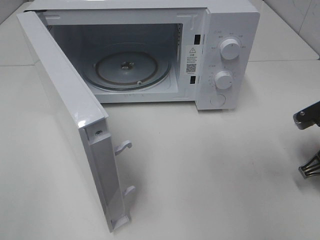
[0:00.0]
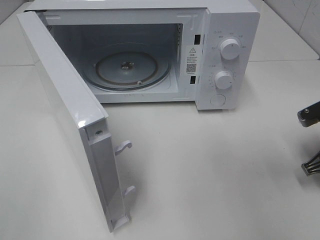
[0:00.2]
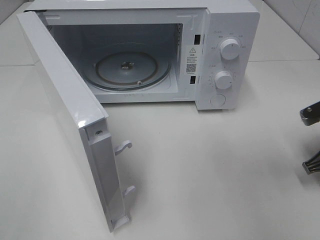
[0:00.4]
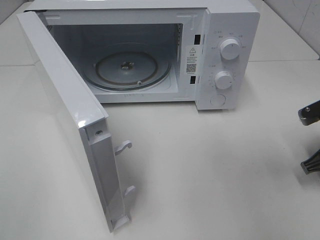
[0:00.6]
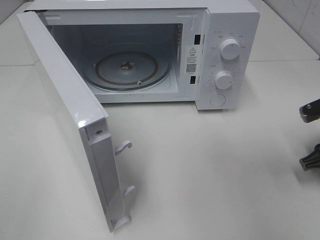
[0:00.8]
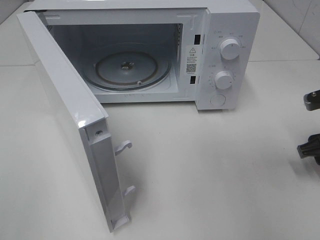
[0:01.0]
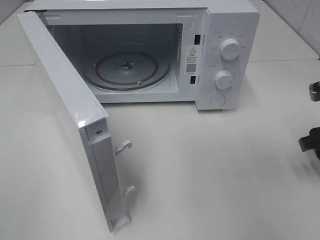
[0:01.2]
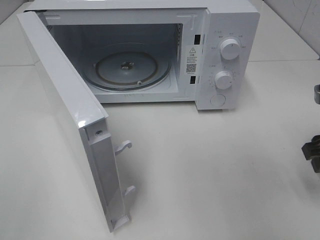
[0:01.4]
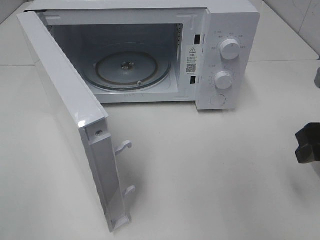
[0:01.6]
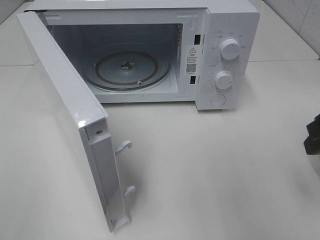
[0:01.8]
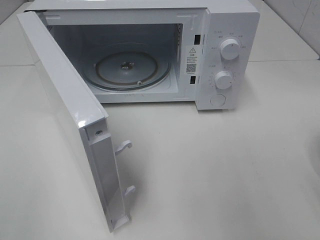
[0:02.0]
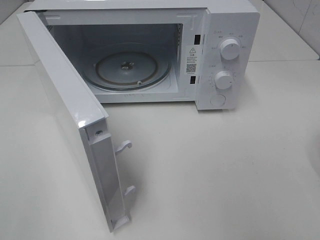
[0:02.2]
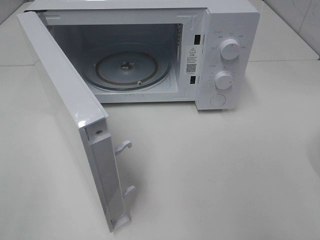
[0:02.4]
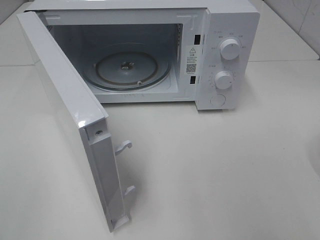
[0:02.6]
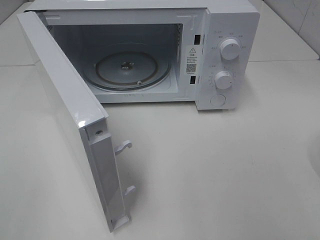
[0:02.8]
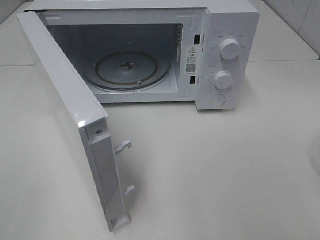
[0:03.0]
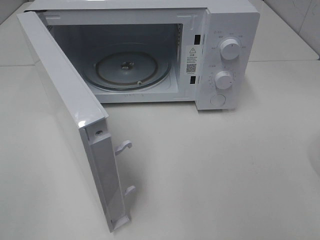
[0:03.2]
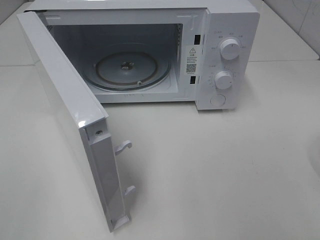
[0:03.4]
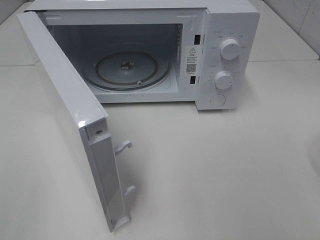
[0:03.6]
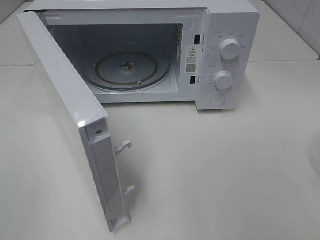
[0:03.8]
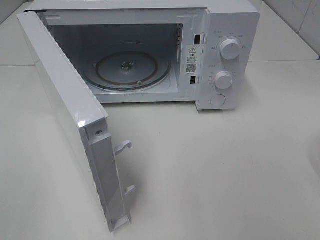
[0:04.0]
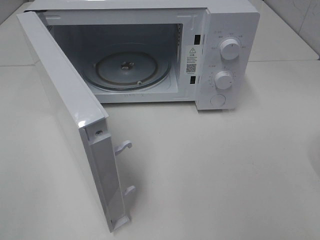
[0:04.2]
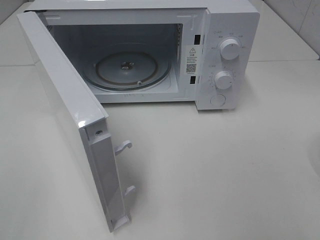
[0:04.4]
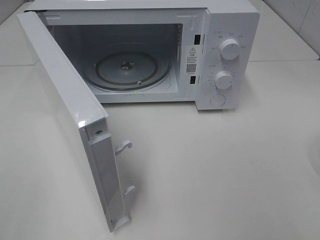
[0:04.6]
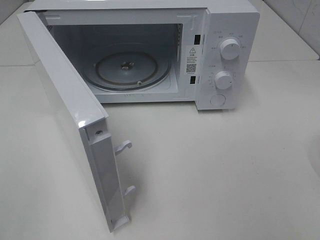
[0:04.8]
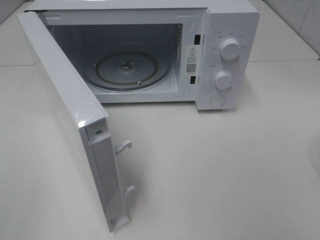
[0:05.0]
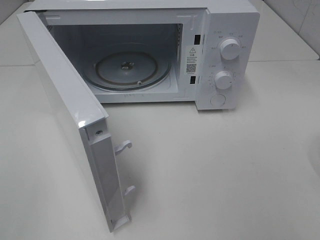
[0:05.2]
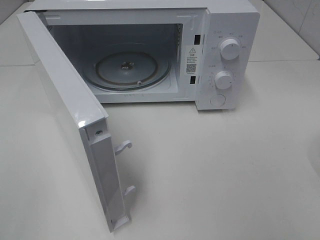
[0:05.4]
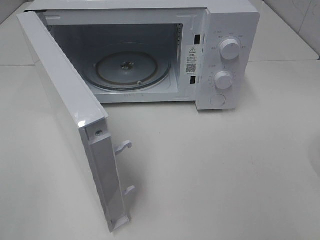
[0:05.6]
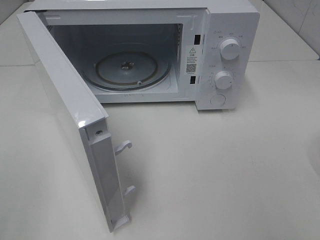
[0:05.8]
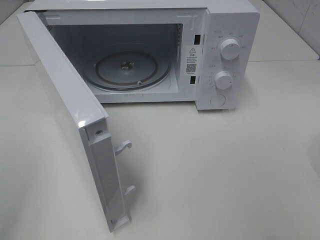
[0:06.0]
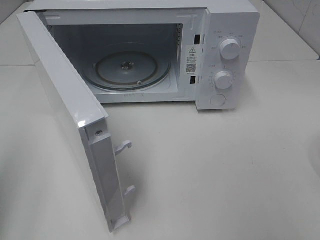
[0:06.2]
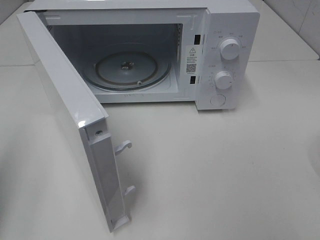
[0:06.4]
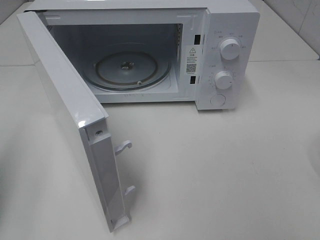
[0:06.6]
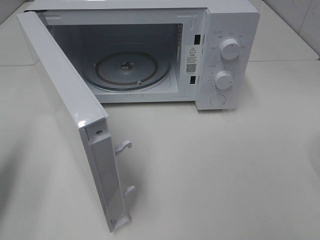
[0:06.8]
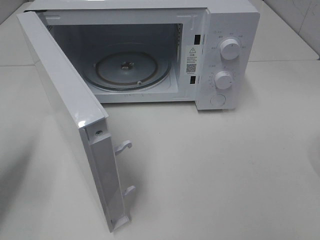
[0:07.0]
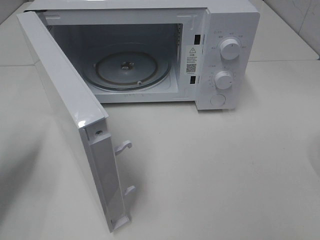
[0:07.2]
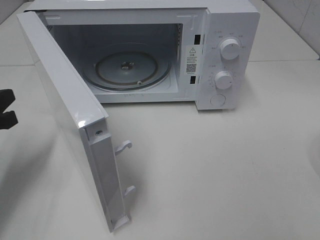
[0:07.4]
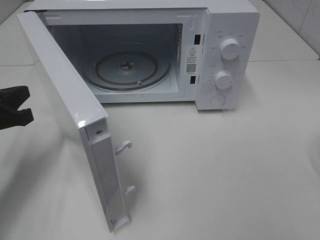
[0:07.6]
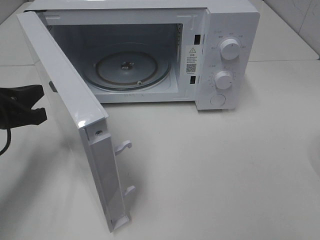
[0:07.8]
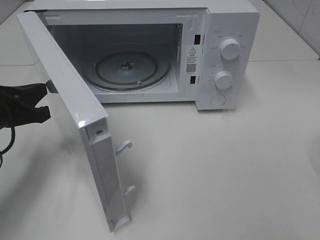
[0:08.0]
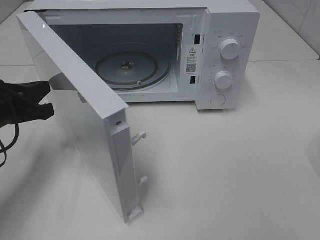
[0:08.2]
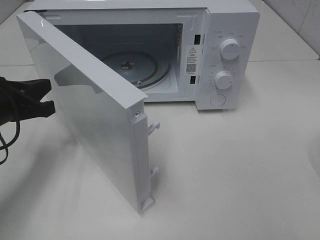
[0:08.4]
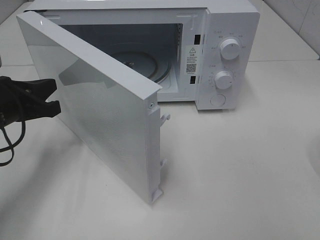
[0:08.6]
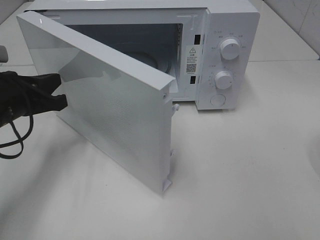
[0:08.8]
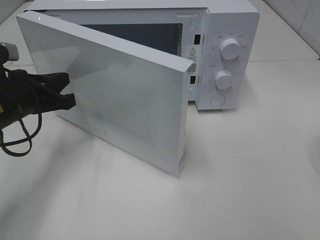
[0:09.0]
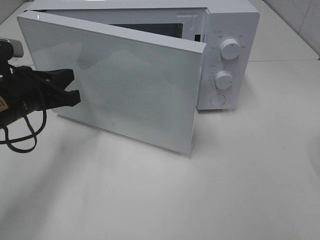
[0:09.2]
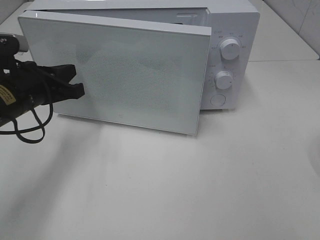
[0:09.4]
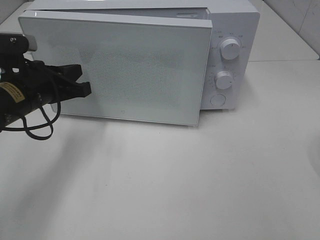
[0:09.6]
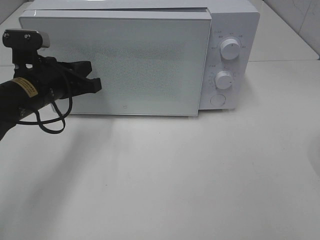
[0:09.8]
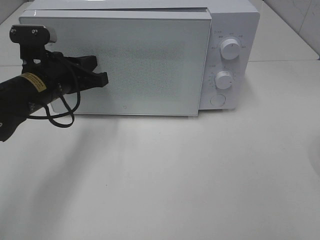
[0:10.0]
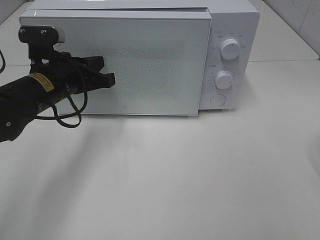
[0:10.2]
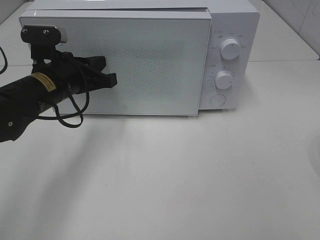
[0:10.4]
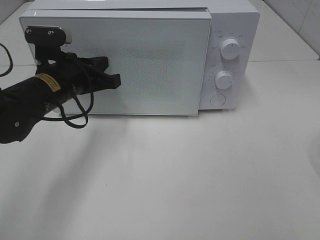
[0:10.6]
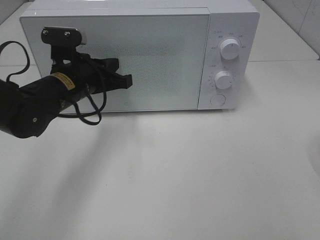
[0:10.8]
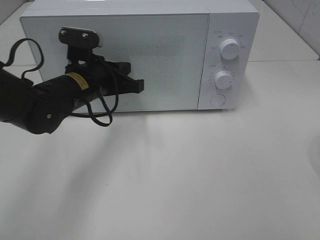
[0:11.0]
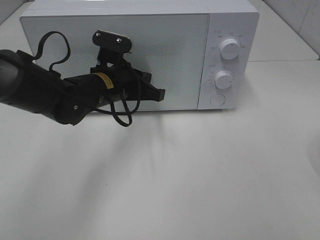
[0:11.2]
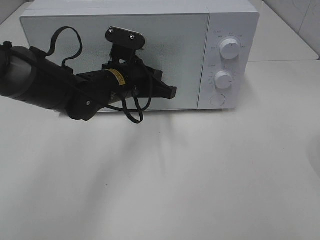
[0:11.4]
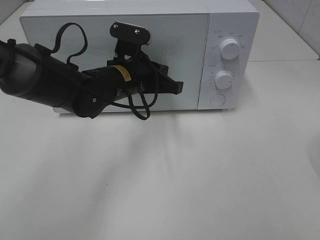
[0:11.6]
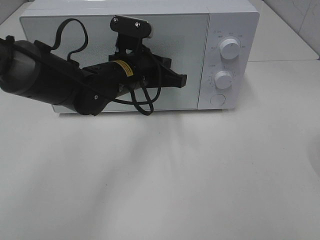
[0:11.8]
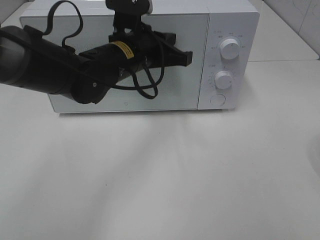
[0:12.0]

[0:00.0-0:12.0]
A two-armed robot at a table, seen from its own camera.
Task of the whole recording: Heat the burger.
Step, 0:00.8 to 0:11.0: Left hand: close the microwave door.
0:00.0 to 0:01.6: The right gripper shifts about 10 cm upward, and opens up.
0:01.6 to 0:03.0: The right gripper shifts about 20 cm backward.
0:06.0 to 0:07.6: The left gripper heads forward and downward, covering about 25 cm, and closes.
0:07.6 to 0:09.0: The left gripper moves to the right, roughly 5 cm.
0:09.0 to 0:10.4: The left gripper is displaced to the right by some 5 cm.
0:10.4 to 0:12.0: The left gripper travels to the right by some 10 cm.

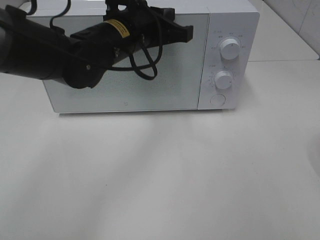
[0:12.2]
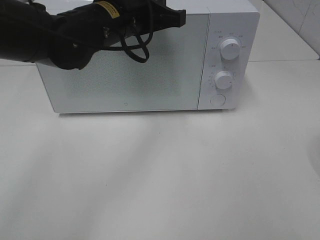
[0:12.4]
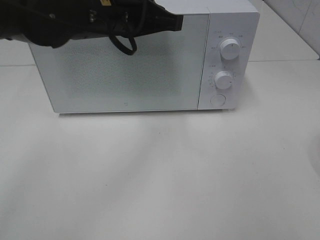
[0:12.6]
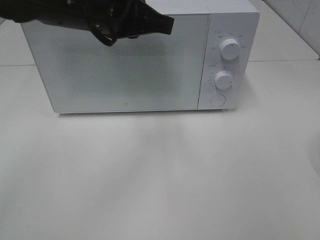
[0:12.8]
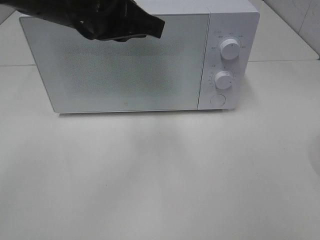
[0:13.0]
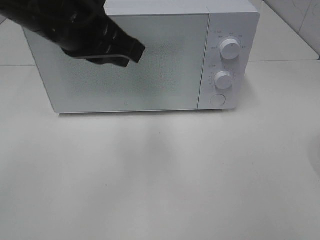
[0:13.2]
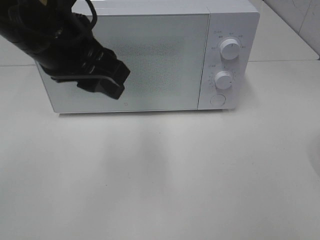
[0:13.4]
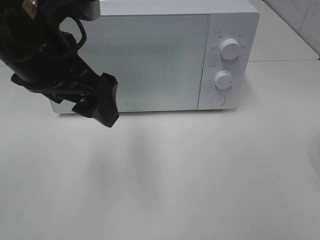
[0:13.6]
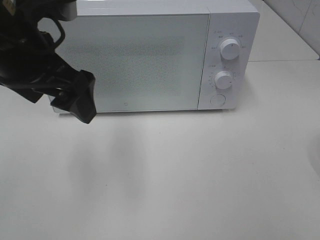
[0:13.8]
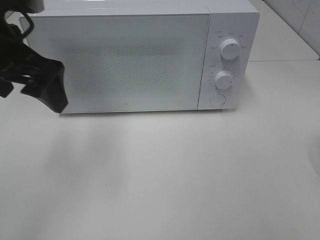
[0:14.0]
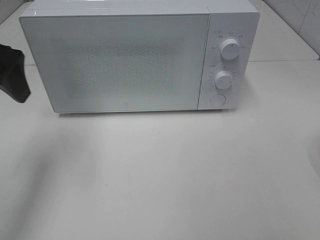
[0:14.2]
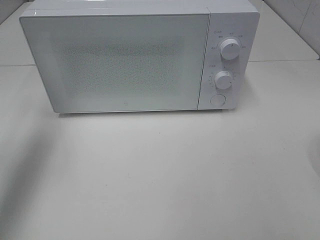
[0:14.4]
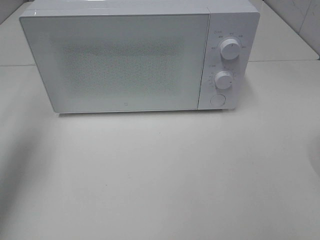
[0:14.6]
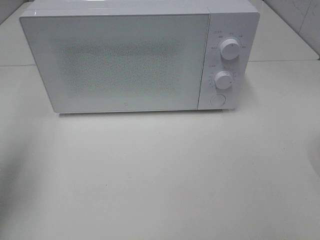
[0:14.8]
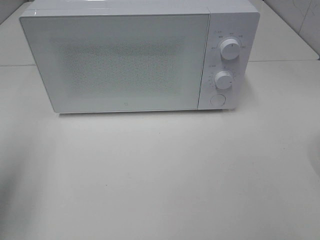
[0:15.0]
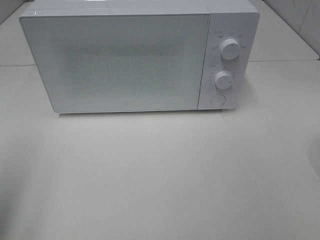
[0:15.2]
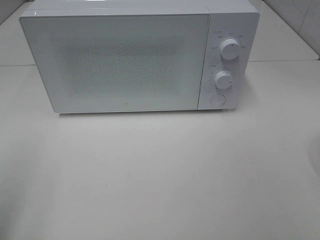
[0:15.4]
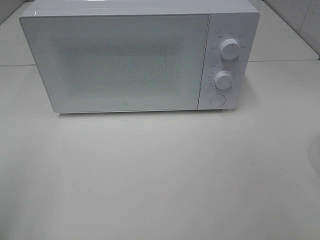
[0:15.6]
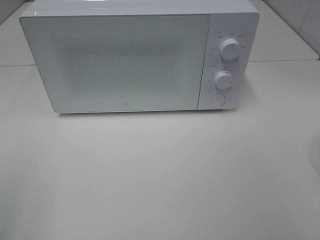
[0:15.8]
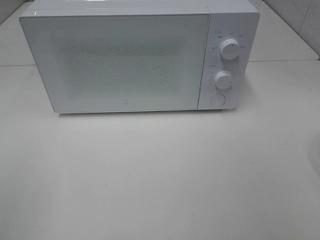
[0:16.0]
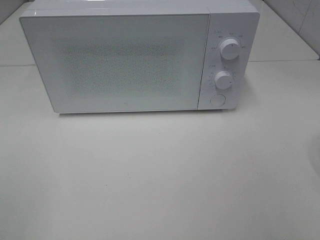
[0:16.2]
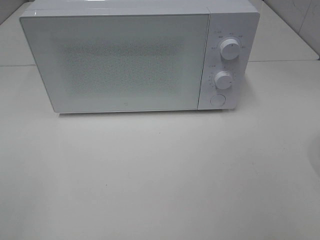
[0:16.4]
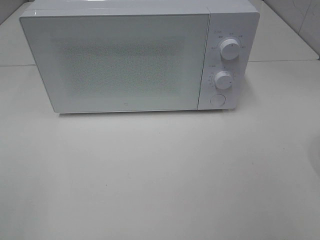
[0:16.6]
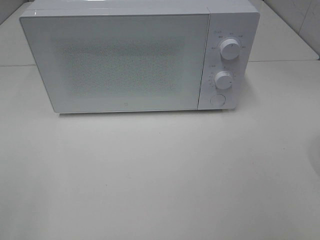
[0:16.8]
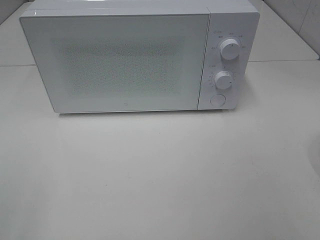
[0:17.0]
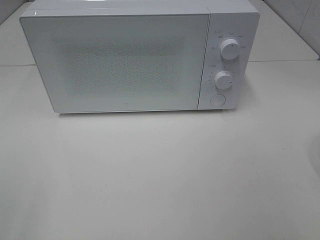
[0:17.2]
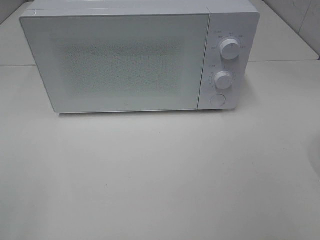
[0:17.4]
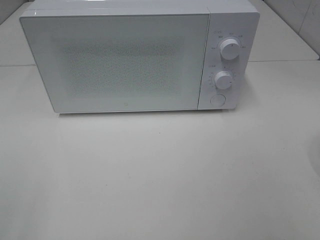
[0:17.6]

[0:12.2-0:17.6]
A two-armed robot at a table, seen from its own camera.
Task of the whole recording: Heat the burger.
0:12.2 to 0:13.6: The left gripper goes some 15 cm backward, to the left and upward, and opens its fingers.
0:13.6 to 0:15.0: The left gripper goes approximately 20 cm to the left.
0:15.0 to 0:16.2: The left gripper goes approximately 15 cm backward.
0:16.2 to 0:17.6: Both grippers stay put.

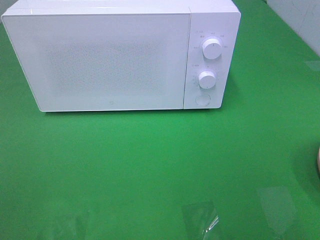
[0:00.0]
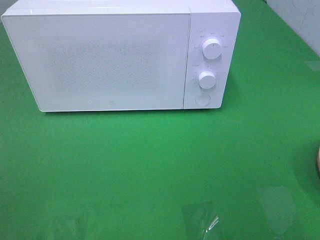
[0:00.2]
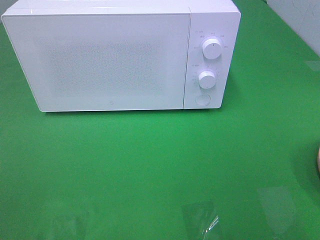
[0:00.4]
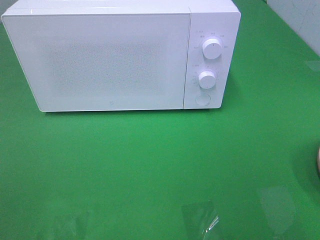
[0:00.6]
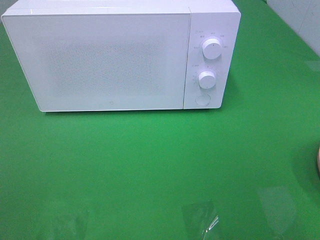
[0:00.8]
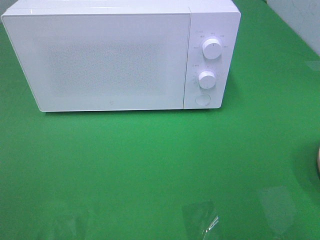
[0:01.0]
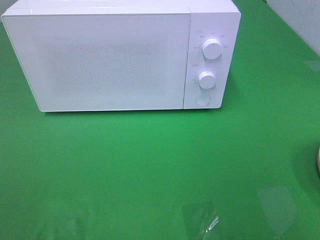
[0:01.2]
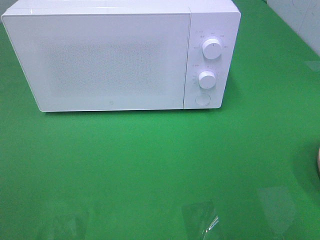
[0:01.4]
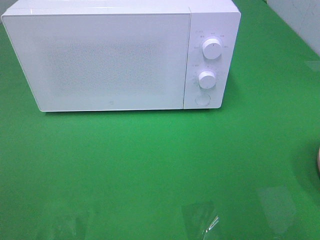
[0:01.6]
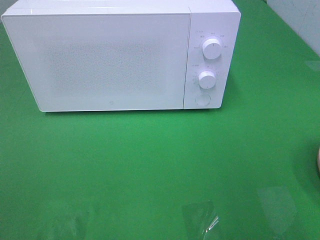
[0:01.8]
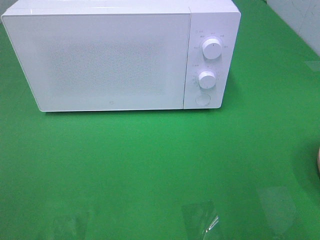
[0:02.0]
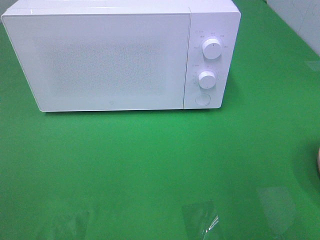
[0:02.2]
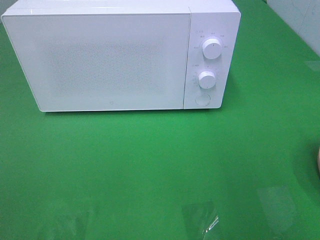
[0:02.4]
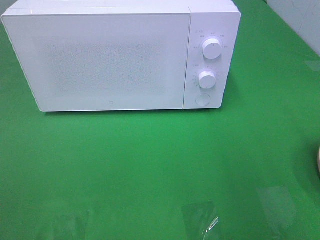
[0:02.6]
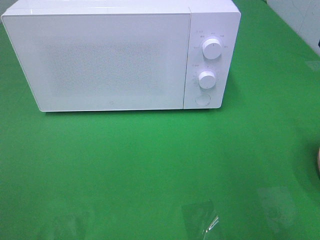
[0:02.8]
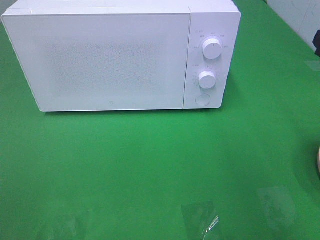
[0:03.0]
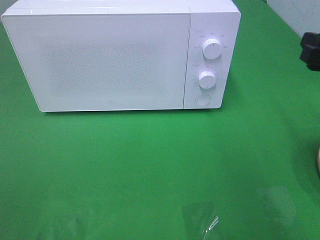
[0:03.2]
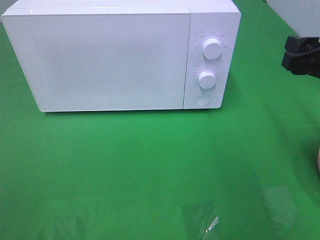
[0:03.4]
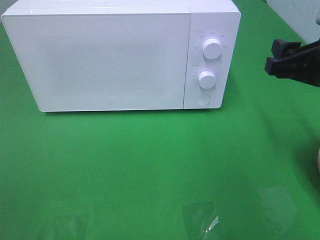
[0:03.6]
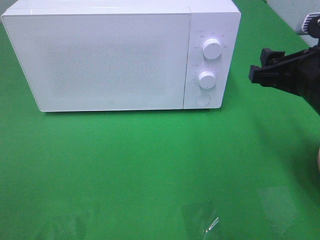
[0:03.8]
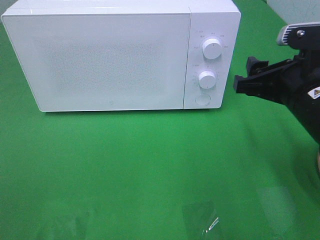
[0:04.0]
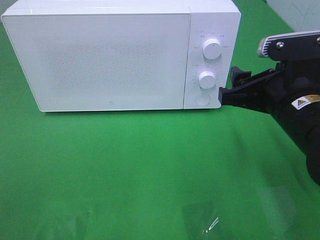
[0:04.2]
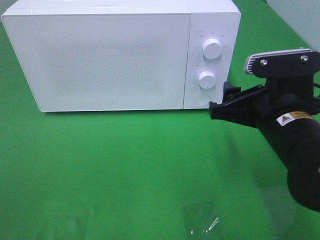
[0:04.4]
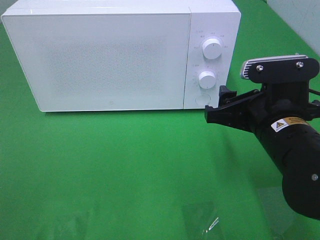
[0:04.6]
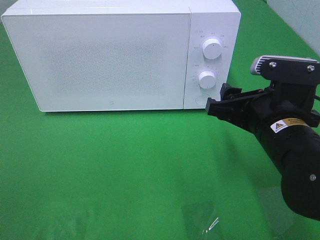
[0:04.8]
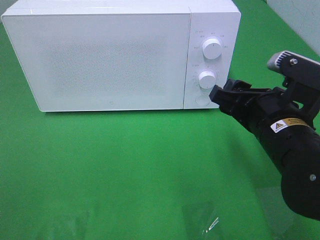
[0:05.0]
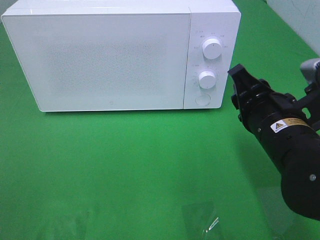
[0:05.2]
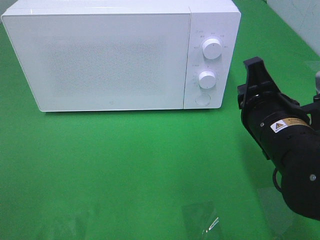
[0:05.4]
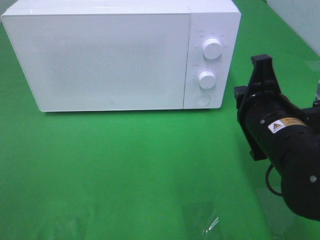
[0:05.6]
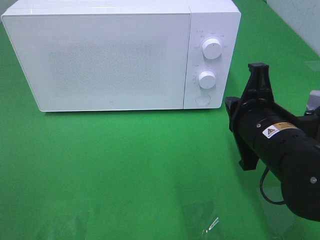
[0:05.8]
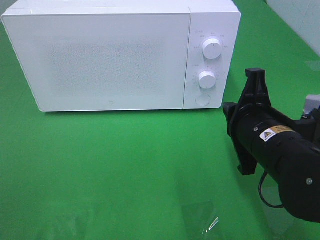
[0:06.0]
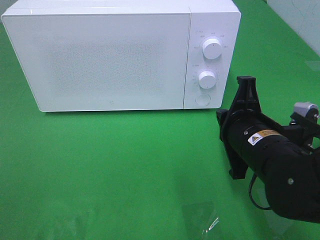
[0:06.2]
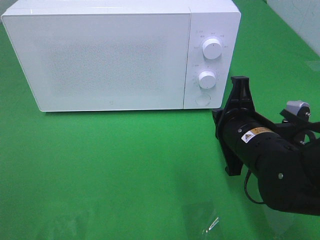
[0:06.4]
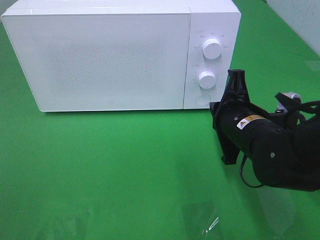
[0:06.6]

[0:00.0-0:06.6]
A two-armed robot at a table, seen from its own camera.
Task of the whole recording: Heat the burger.
0:01.6 to 0:03.2: The right gripper goes about 15 cm forward.
0:03.2 to 0:05.0: The right gripper moves to the left and downward, roughly 15 cm.
0:05.0 to 0:06.6: The right gripper moves roughly 5 cm, and closes.
